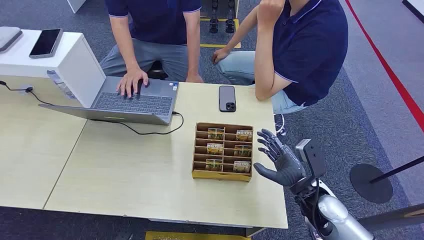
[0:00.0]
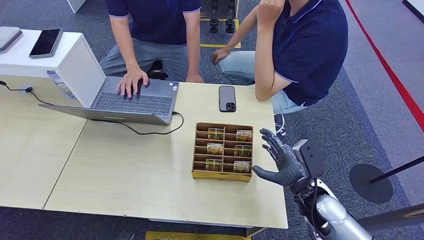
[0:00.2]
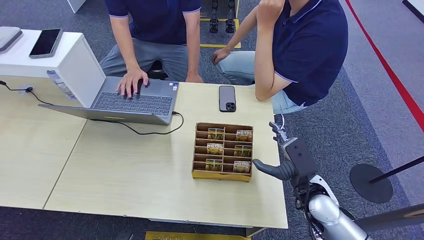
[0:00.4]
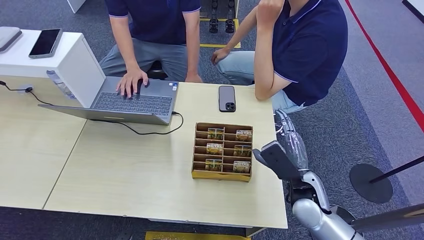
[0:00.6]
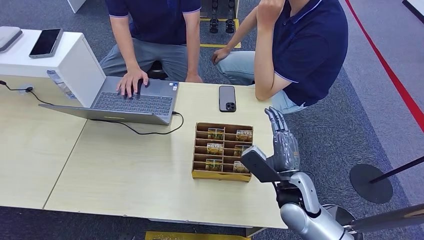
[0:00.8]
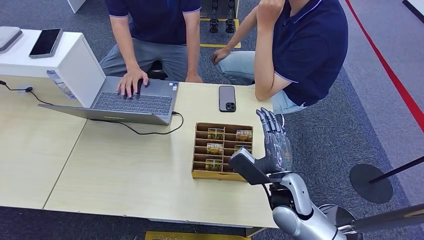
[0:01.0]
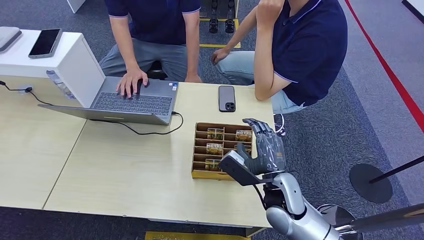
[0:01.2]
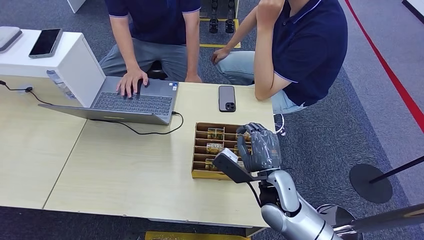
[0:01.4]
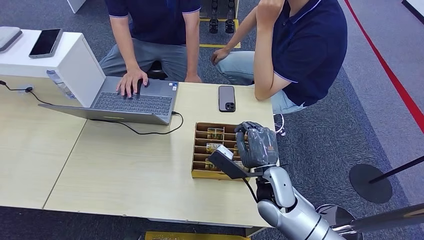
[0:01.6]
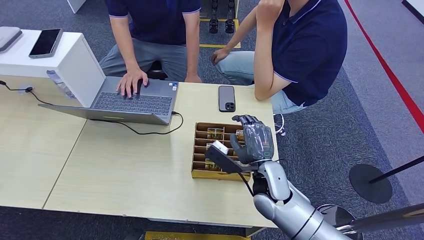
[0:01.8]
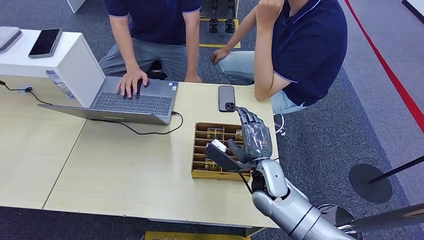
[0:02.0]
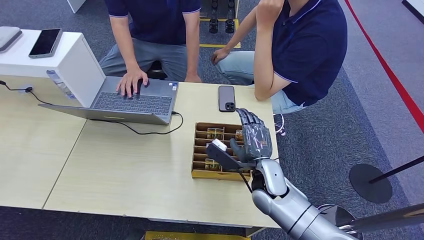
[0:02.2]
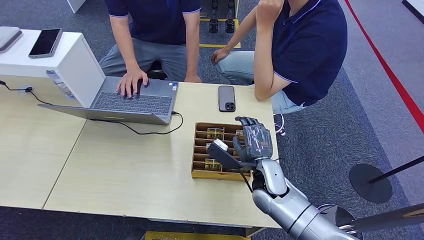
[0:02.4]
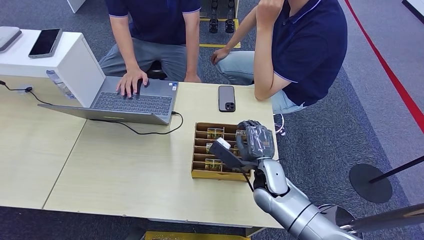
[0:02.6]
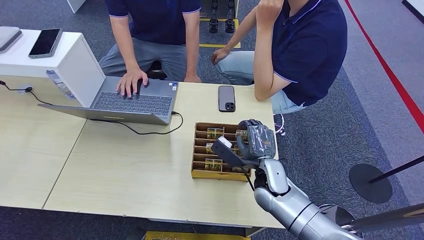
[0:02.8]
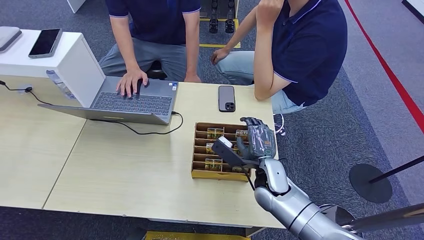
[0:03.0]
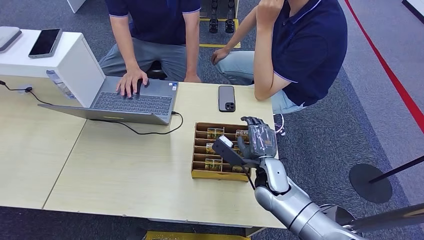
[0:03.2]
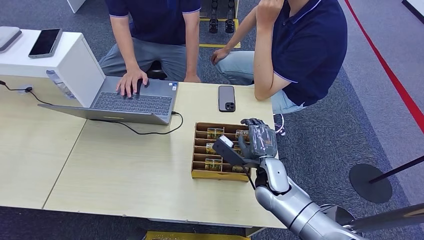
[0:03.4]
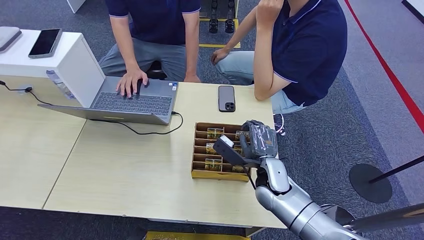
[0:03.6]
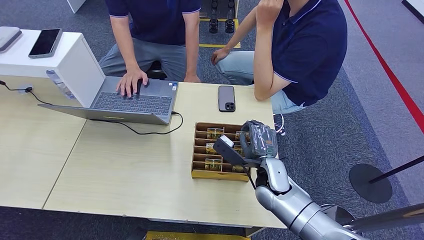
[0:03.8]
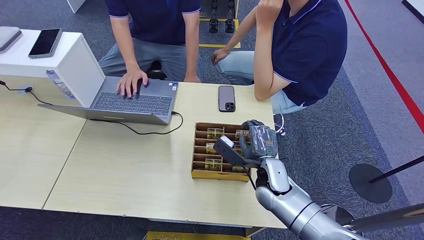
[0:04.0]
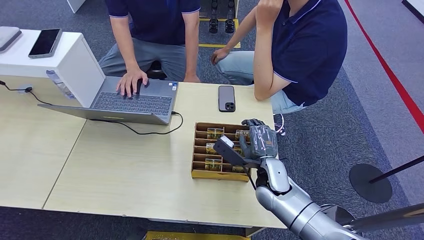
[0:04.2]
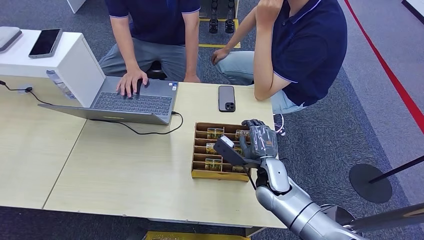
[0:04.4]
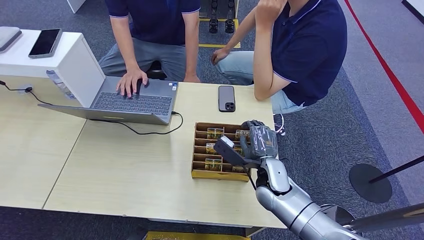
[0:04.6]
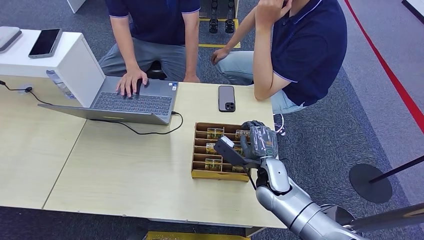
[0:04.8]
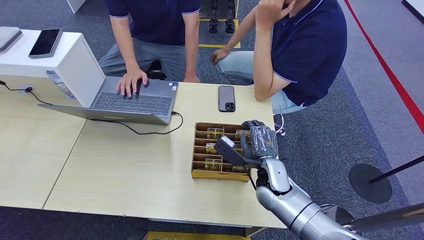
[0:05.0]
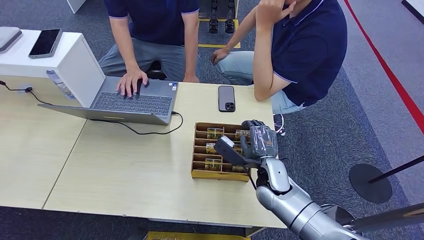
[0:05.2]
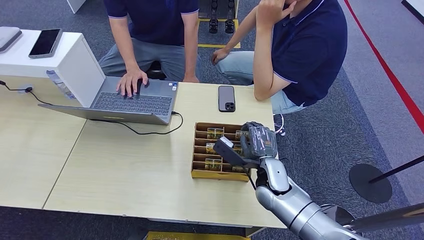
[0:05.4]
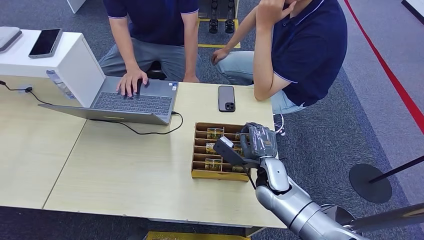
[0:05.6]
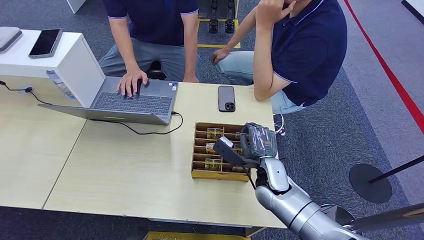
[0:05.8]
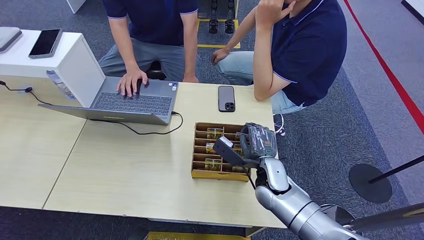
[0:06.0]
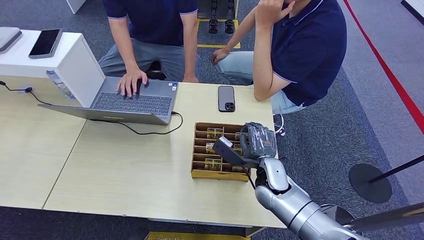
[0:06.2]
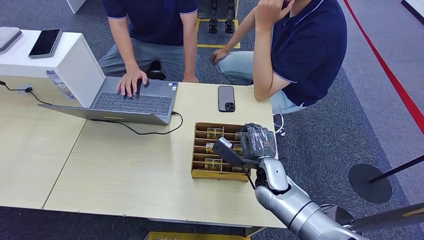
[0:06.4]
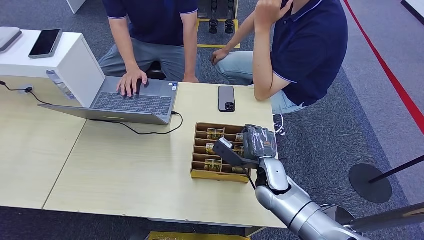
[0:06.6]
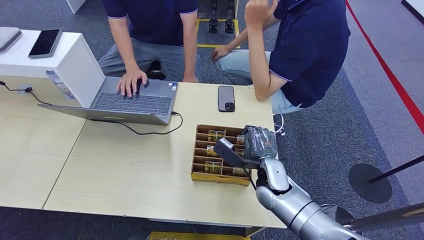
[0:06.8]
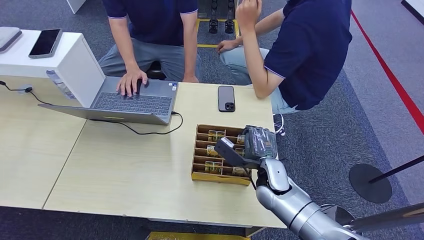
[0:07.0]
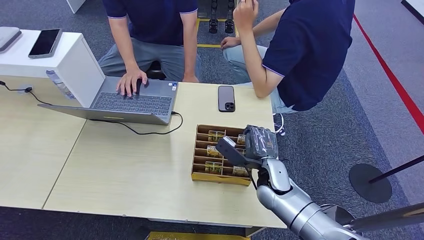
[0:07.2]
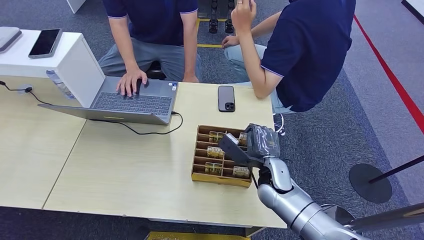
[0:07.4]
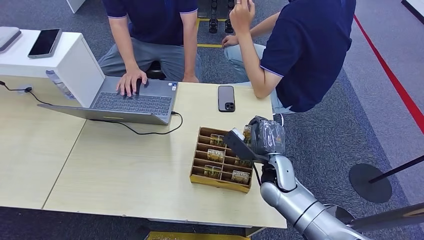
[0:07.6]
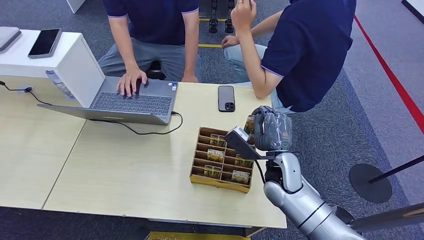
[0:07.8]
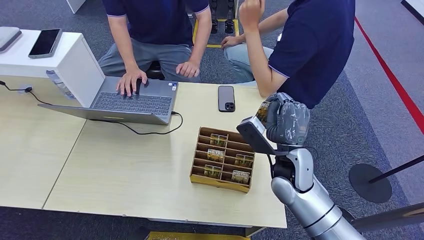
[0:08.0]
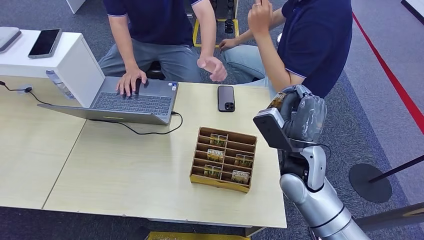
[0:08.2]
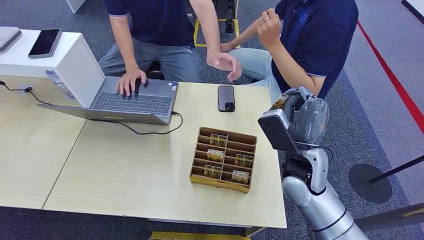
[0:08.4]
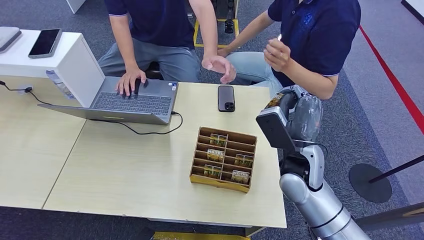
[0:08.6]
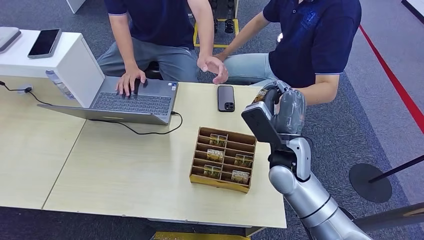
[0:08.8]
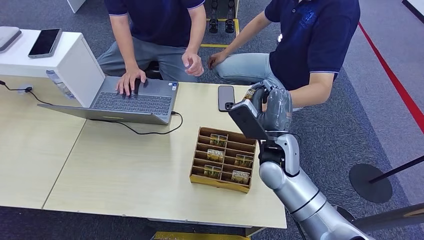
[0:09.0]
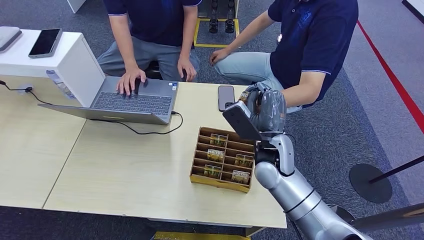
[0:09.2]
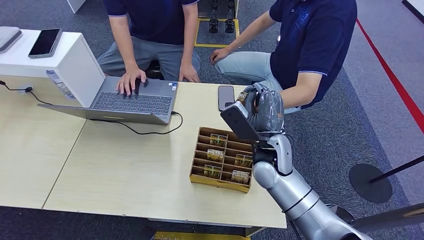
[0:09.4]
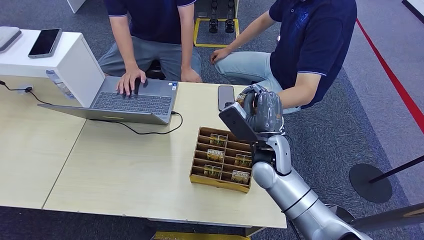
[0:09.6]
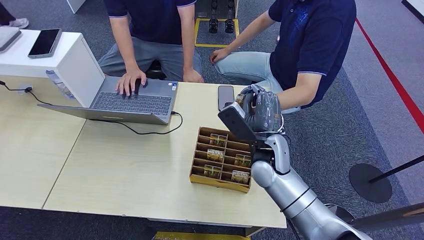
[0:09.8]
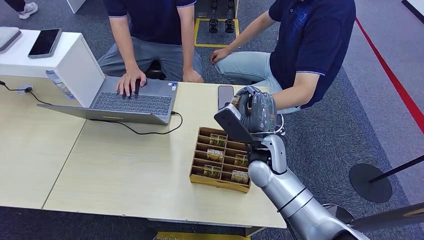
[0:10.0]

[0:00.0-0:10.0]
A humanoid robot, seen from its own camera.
Step, 0:00.0 to 0:09.6: Pick up the key card from the card box.
0:01.4 to 0:02.8: The right hand shifts by roughly 5 cm.
0:02.8 to 0:04.2: Both hands stay put.
0:04.2 to 0:05.8: Neither hand changes place.
0:05.8 to 0:07.2: The two hands keep their place.
0:07.2 to 0:08.6: The right hand shifts about 10 cm upward.
0:08.6 to 0:10.0: The right hand shifts about 5 cm to the left.
